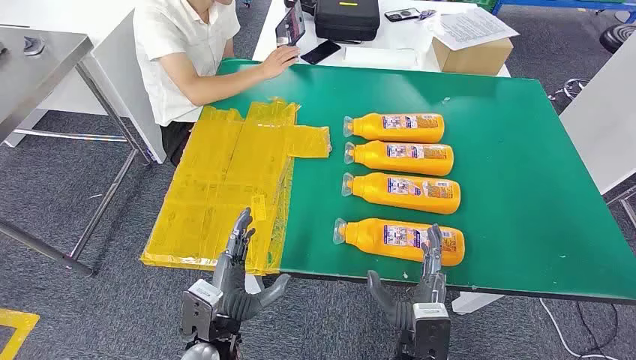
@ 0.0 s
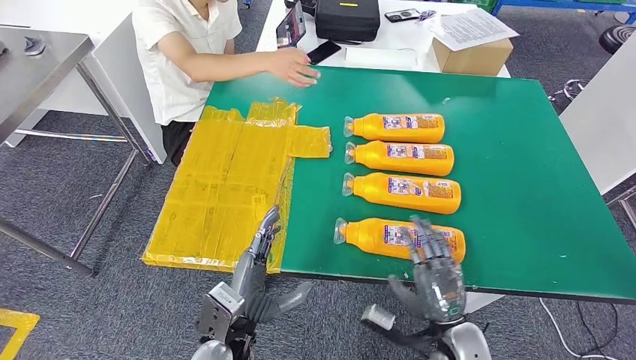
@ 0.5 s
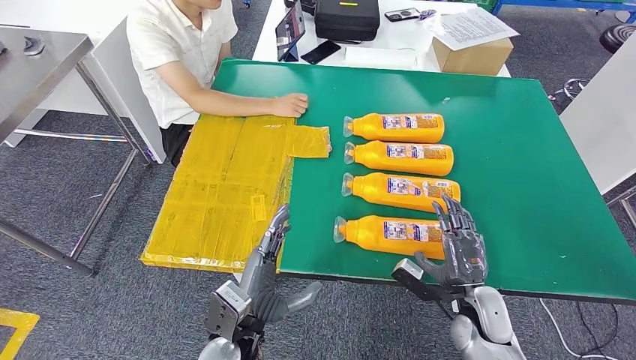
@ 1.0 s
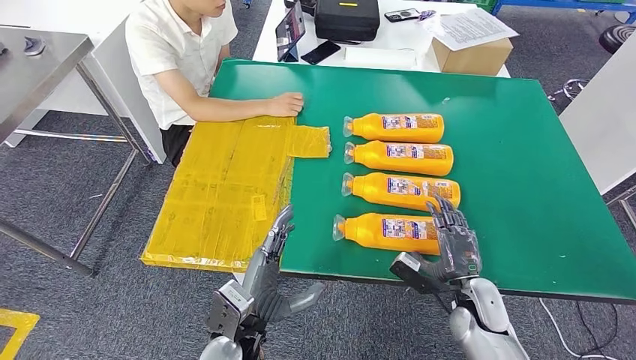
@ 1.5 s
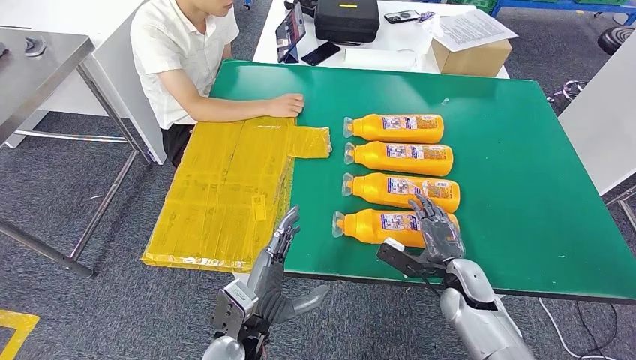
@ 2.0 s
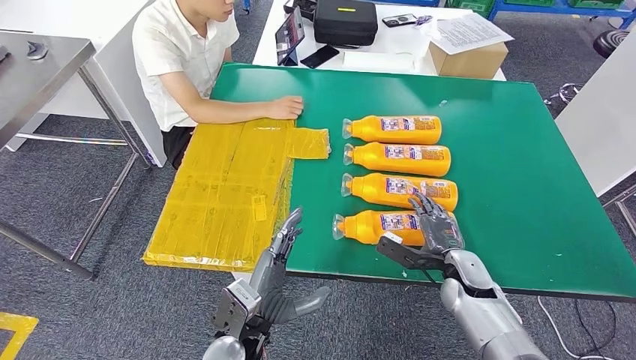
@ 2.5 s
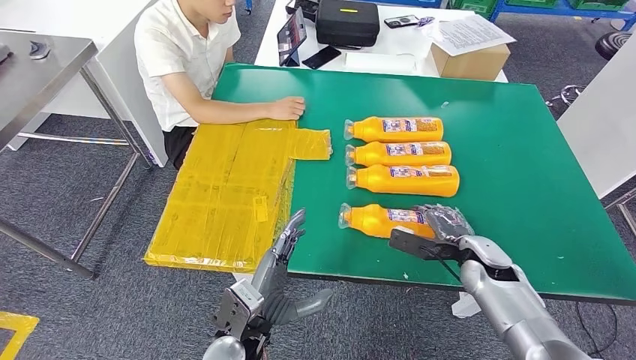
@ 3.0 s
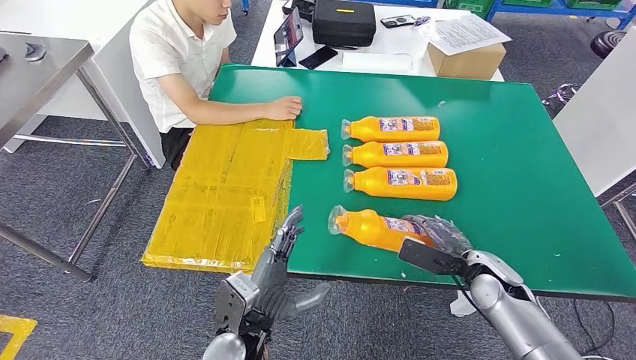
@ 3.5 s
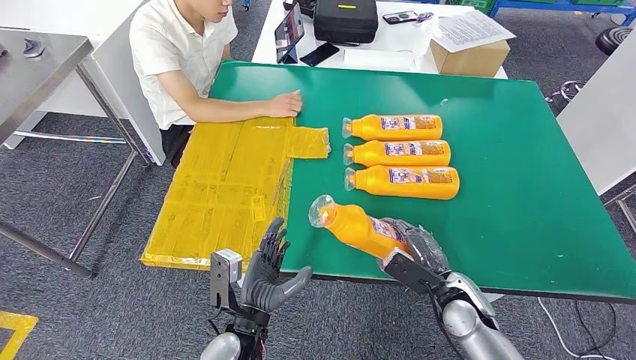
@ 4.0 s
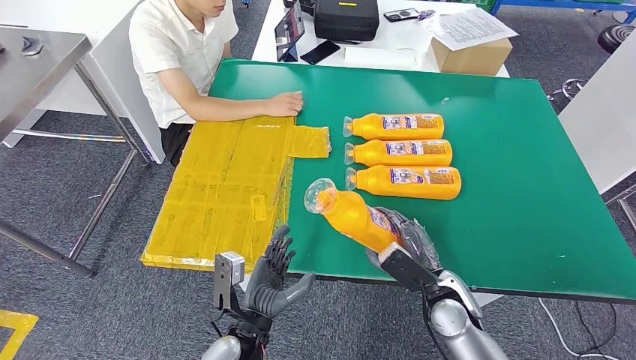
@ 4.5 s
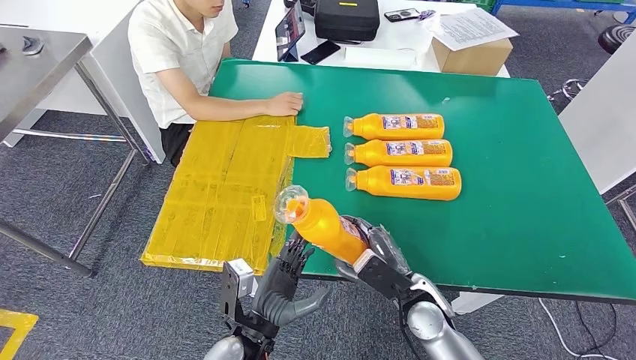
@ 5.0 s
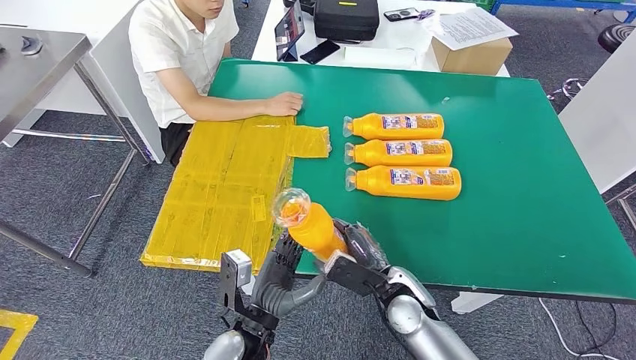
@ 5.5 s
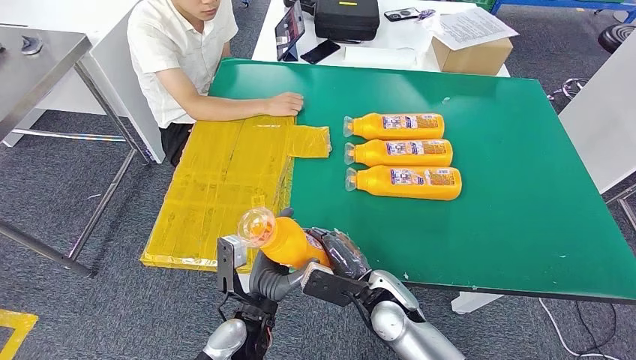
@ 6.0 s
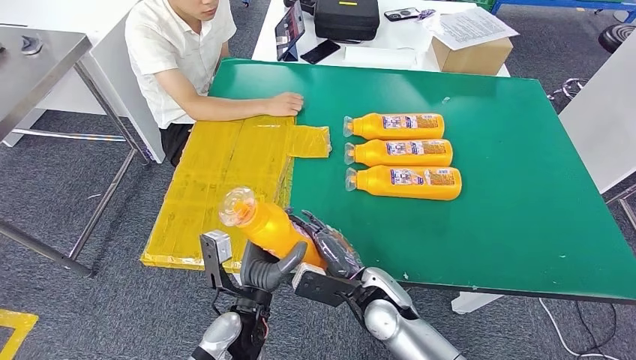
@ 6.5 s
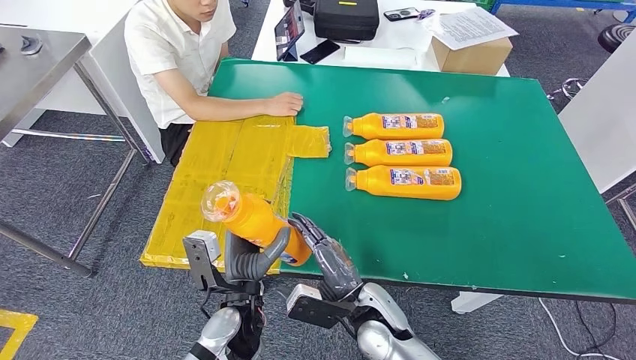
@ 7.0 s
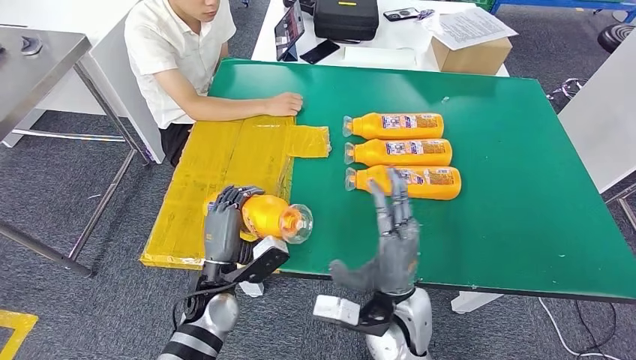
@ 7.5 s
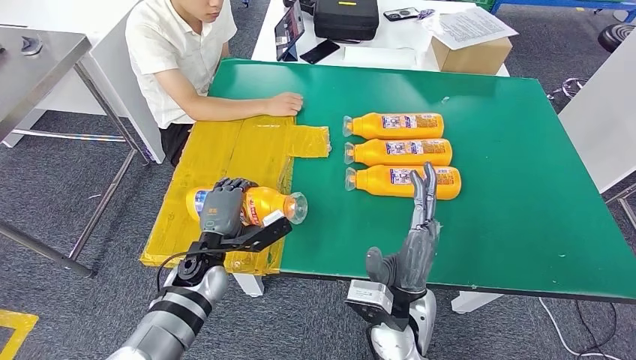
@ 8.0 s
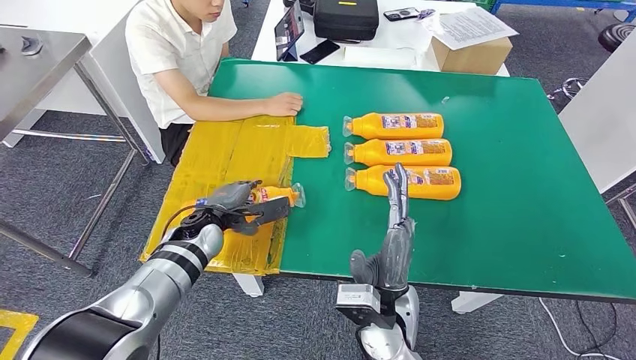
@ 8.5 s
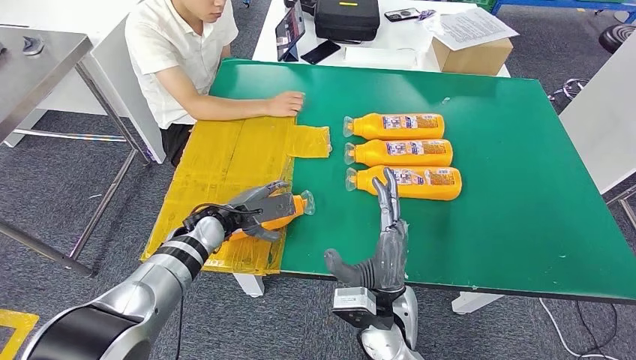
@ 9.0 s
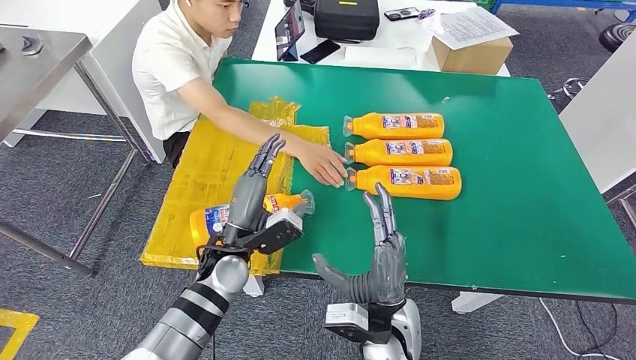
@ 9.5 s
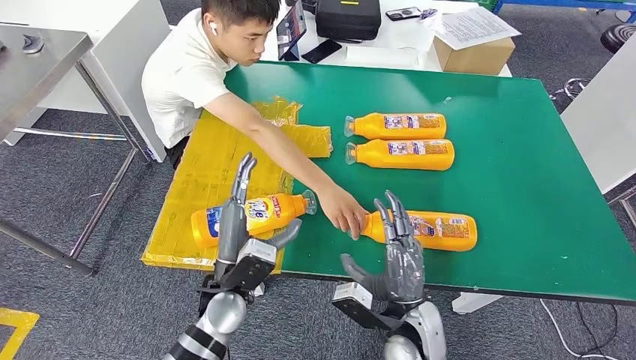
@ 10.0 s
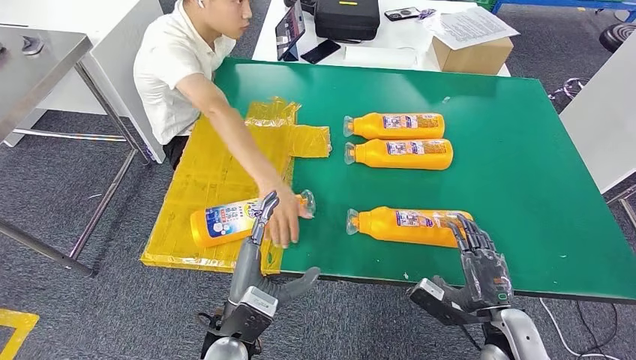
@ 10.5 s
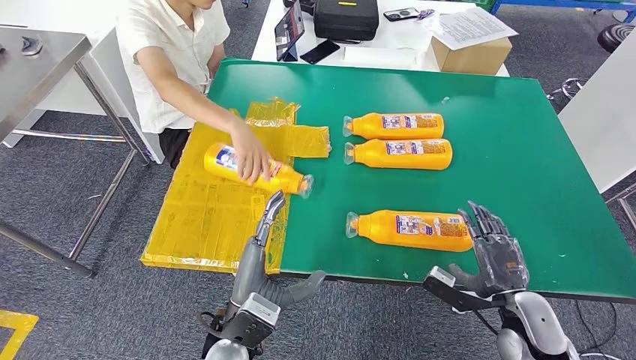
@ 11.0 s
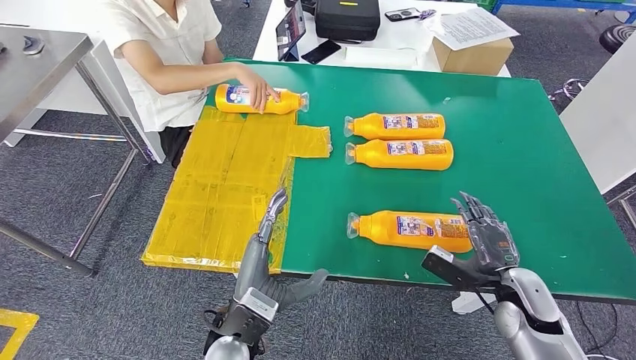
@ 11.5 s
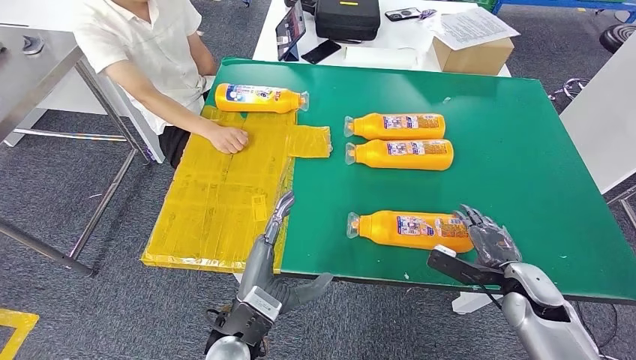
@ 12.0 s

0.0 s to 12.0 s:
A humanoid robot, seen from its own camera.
Step, 0.0 to 5.0 s: Take the fast-moving consumer goods bottle from the table.
Step, 5.5 to 9.0 s: Flip the fast-moving consumer goods bottle to the front side.
4.0 to 6.0 s: The right hand travels to the left by about 15 cm.
6.0 to 8.0 s: The right hand heads upward, covering roughly 5 cm, while the left hand travels forward and to the left by some 15 cm.

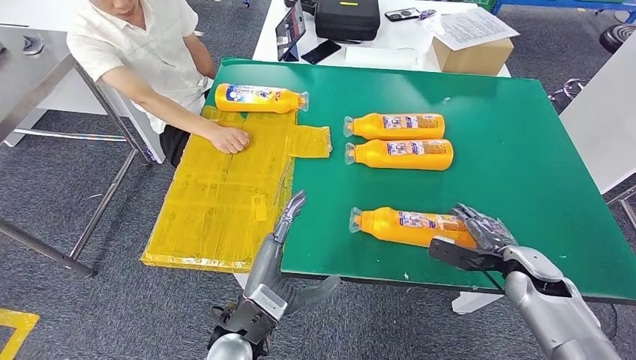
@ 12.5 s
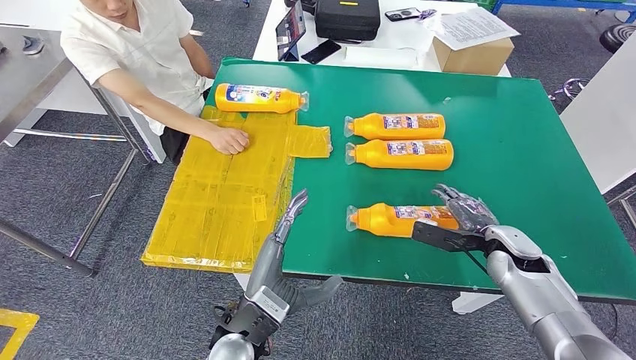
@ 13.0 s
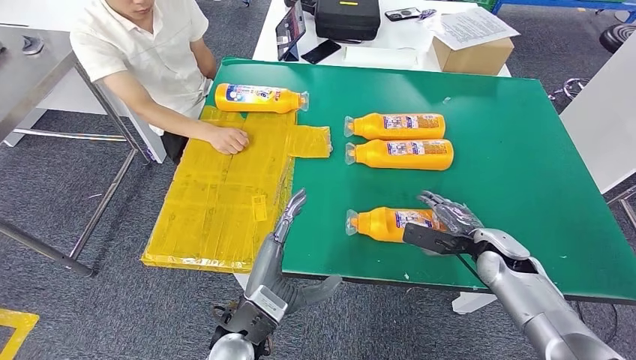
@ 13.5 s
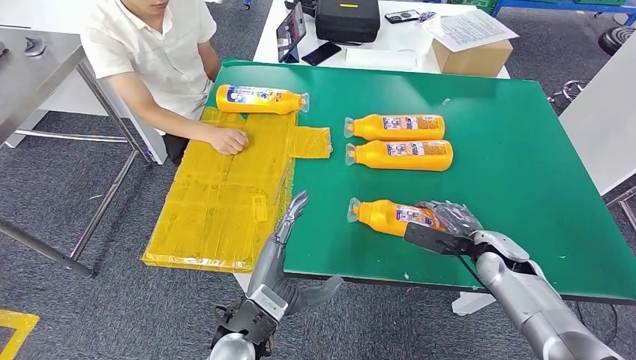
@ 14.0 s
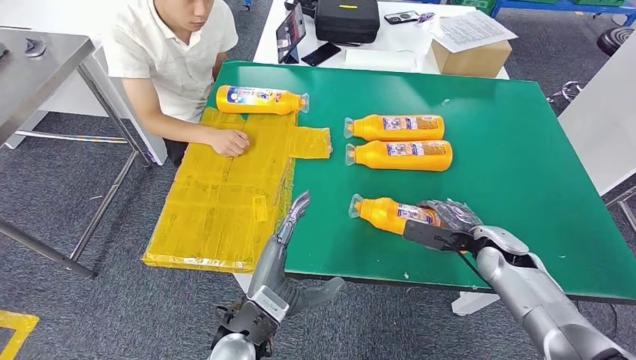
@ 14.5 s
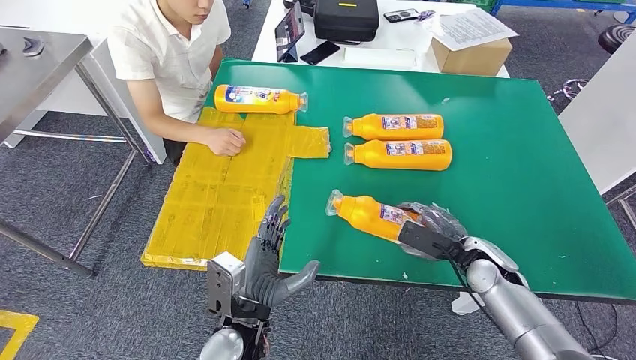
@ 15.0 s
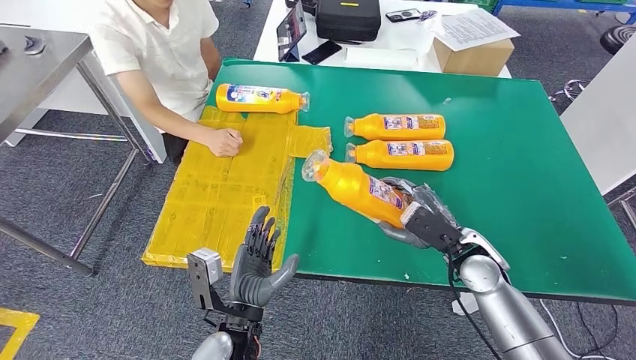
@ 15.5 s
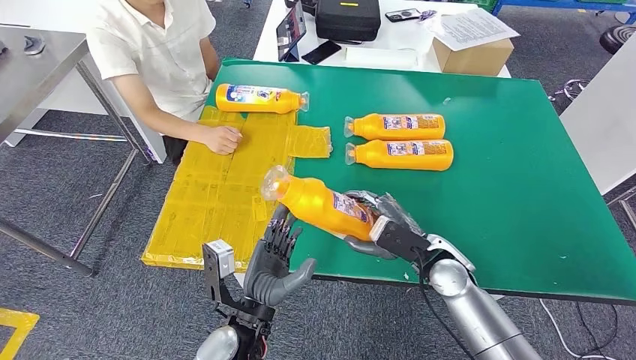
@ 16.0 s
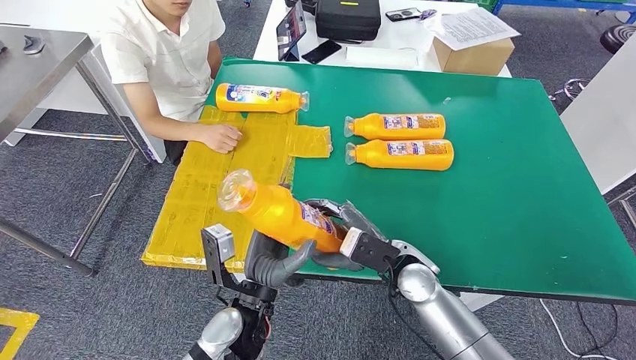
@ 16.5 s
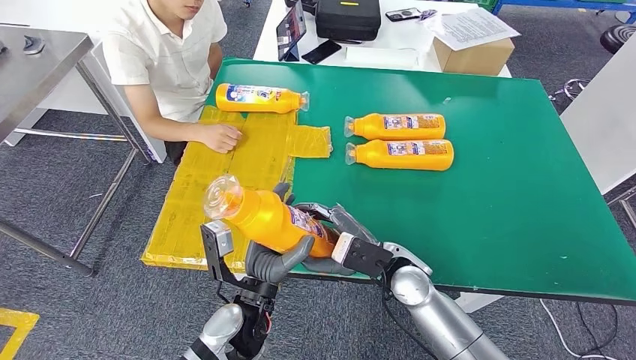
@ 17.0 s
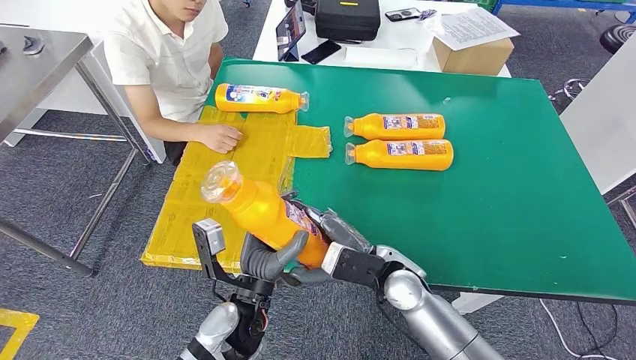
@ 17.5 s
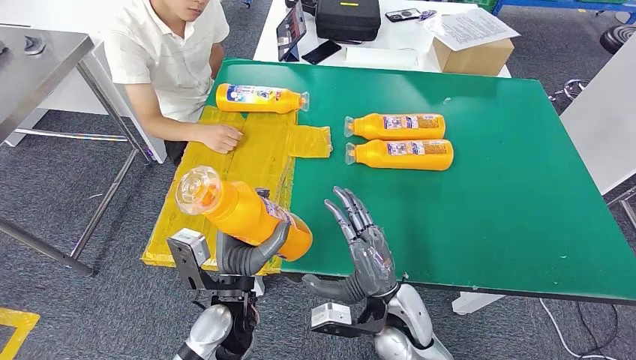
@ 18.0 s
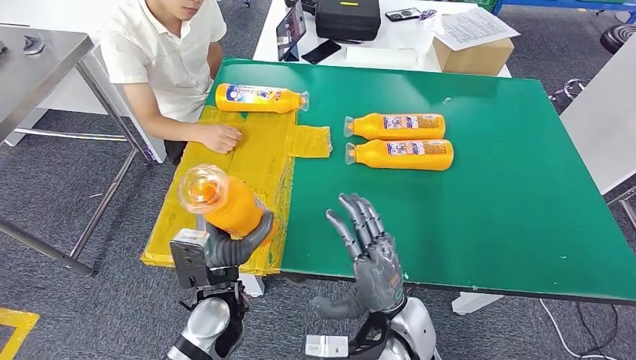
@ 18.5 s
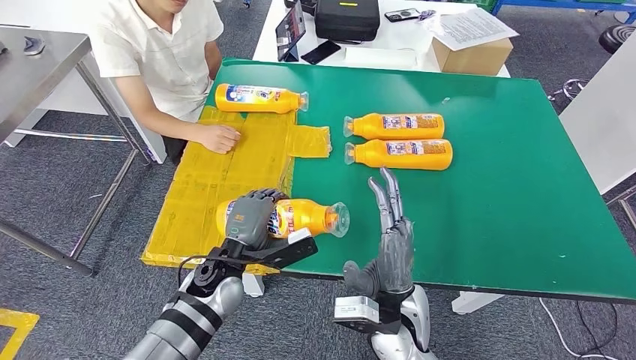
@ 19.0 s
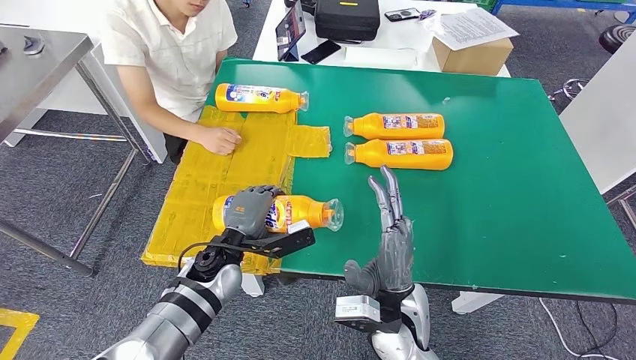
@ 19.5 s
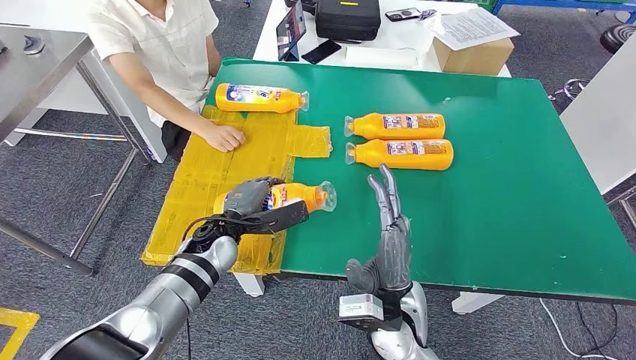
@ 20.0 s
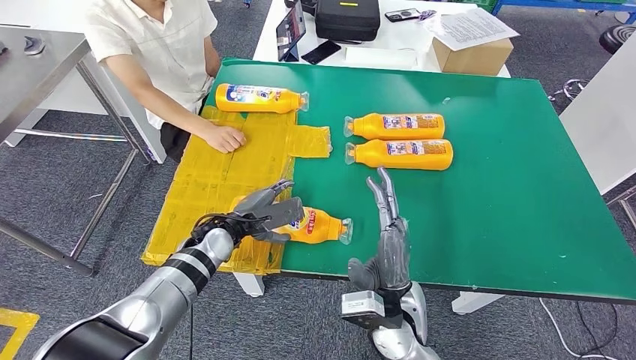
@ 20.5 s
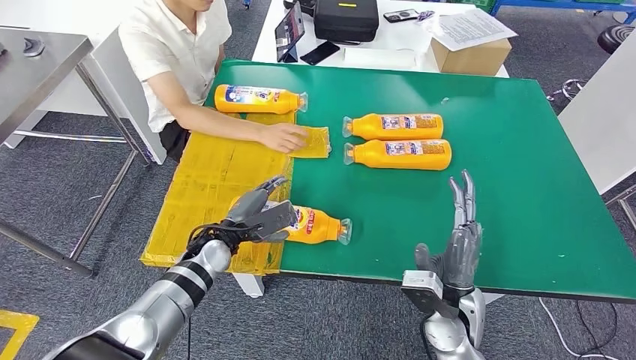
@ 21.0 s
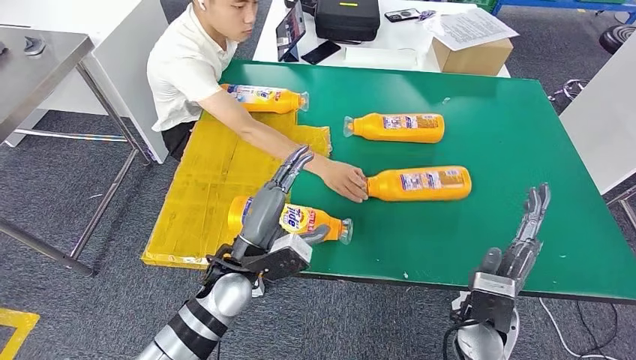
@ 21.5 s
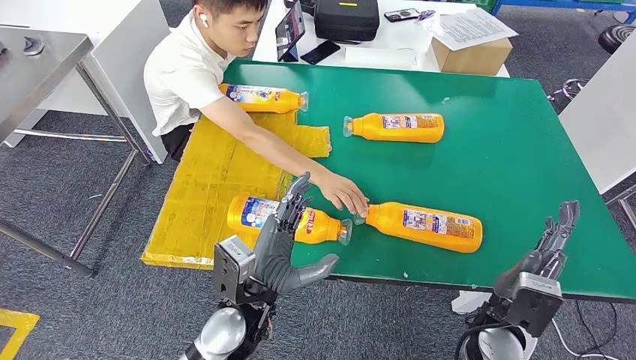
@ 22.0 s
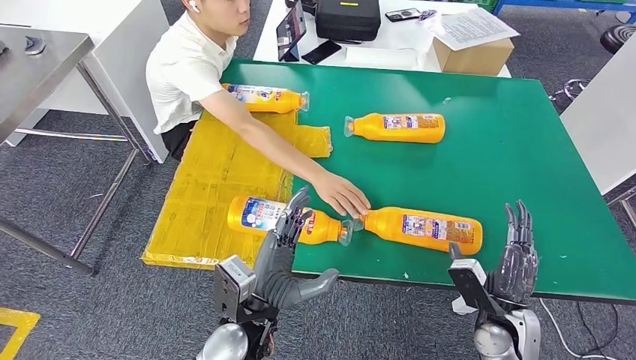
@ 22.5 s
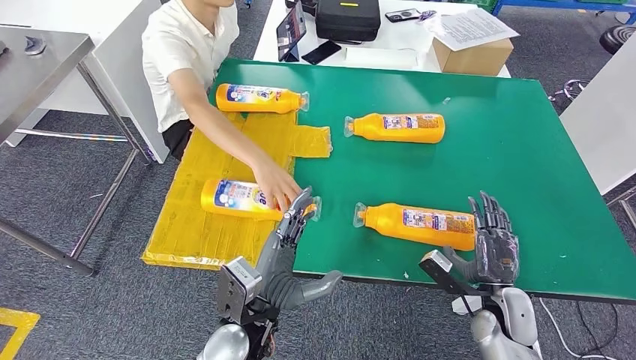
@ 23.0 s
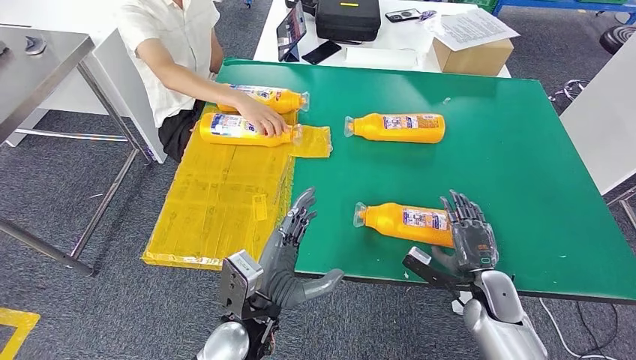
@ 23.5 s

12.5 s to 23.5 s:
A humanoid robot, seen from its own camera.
Step, 12.5 to 17.0 s: Pick up the fast-moving consumer goods bottle from the table.
Step, 17.5 to 20.5 s: Flip the fast-moving consumer goods bottle to the front side.
12.5 to 14.5 s: The right hand ends up some 5 cm from where it was.
16.0 to 18.0 s: The right hand heads to the left and backward, covering some 15 cm.
18.0 to 20.0 s: The left hand moves forward, roughly 15 cm.
